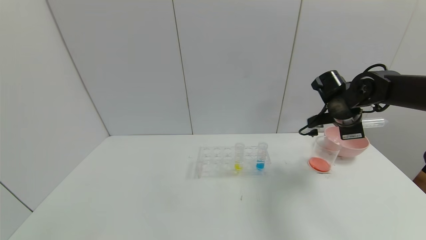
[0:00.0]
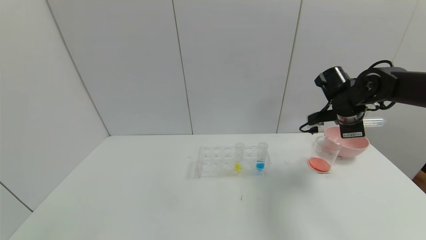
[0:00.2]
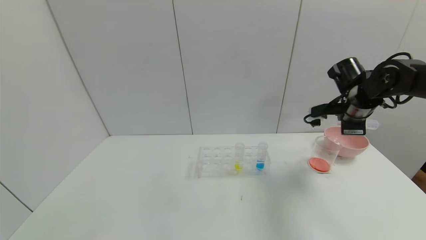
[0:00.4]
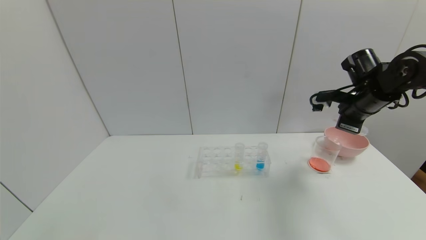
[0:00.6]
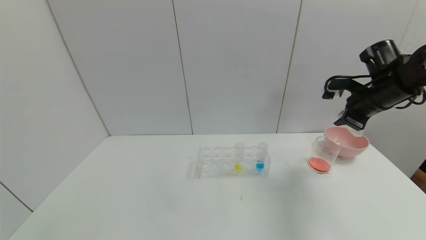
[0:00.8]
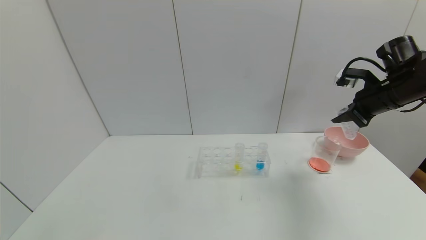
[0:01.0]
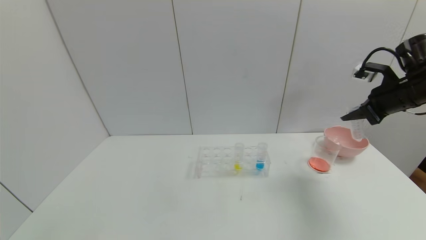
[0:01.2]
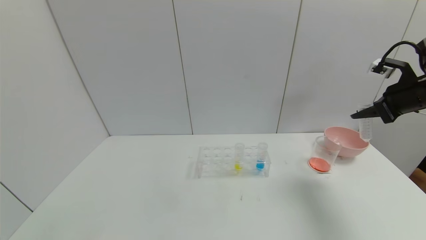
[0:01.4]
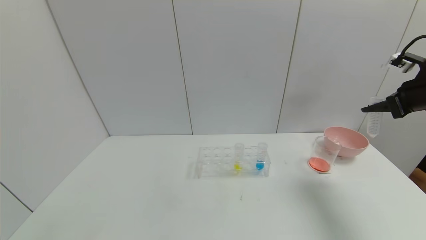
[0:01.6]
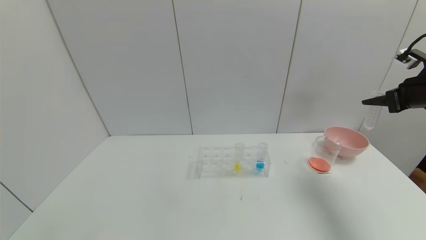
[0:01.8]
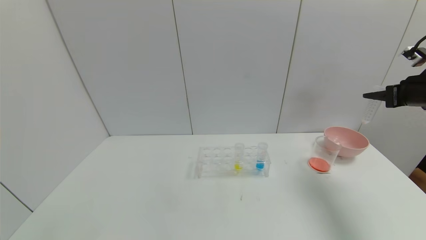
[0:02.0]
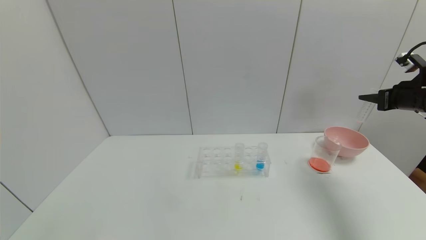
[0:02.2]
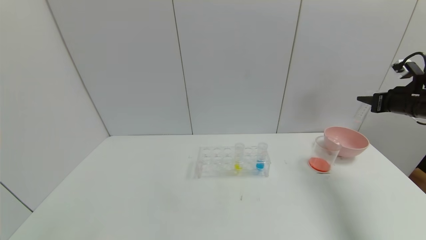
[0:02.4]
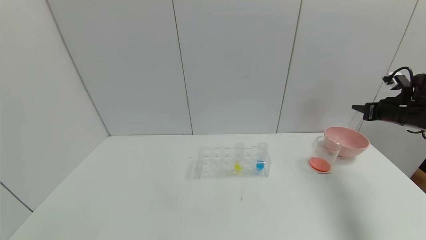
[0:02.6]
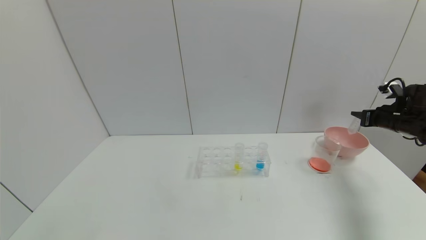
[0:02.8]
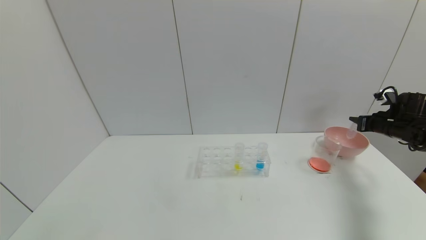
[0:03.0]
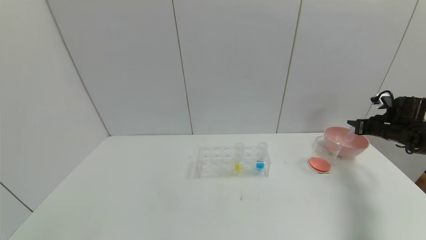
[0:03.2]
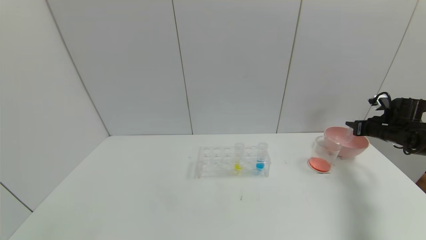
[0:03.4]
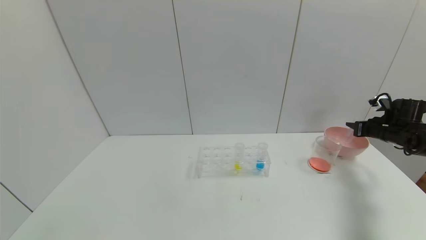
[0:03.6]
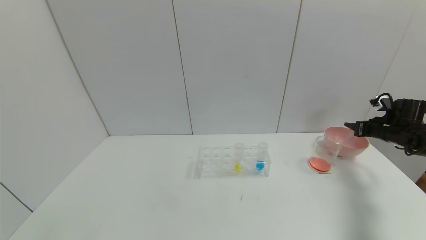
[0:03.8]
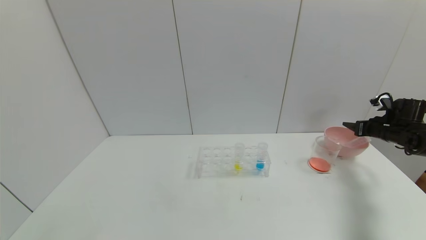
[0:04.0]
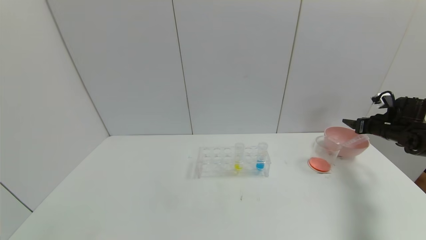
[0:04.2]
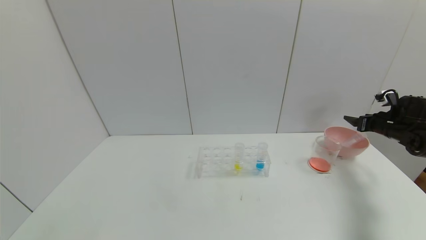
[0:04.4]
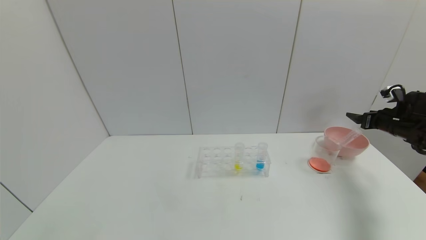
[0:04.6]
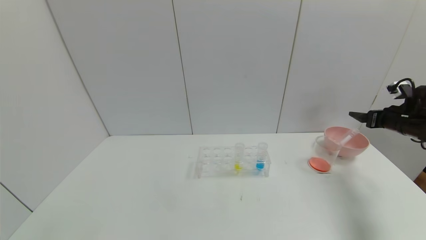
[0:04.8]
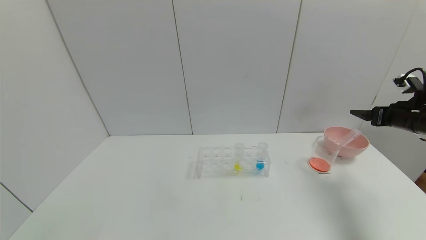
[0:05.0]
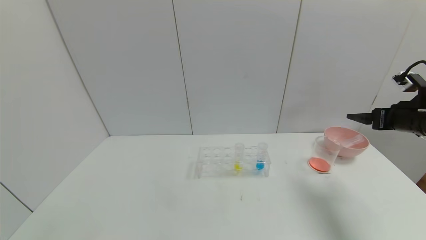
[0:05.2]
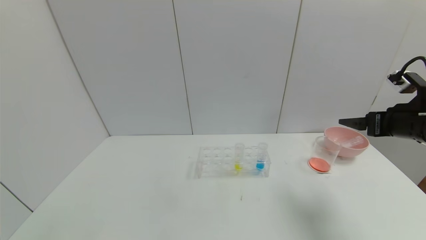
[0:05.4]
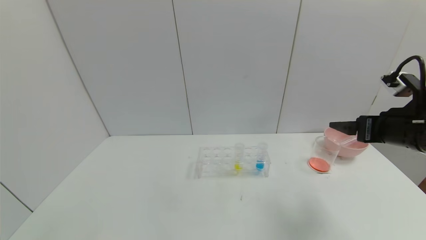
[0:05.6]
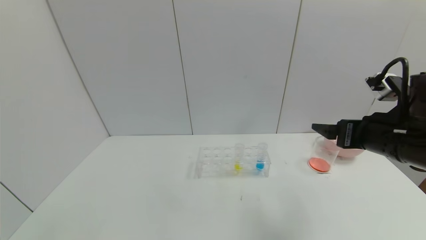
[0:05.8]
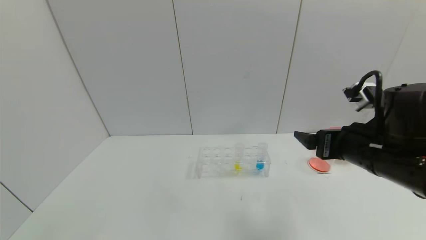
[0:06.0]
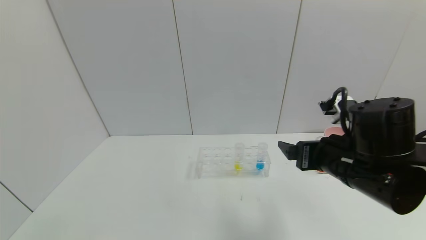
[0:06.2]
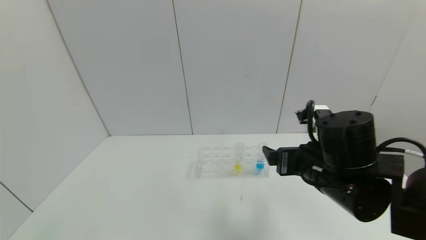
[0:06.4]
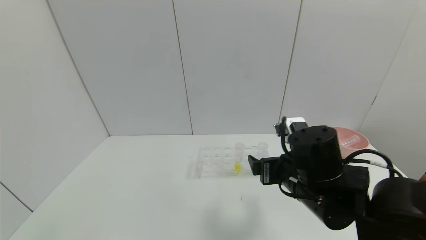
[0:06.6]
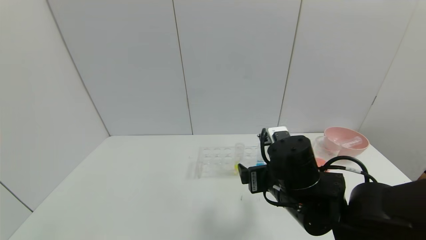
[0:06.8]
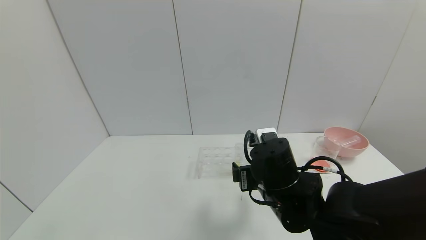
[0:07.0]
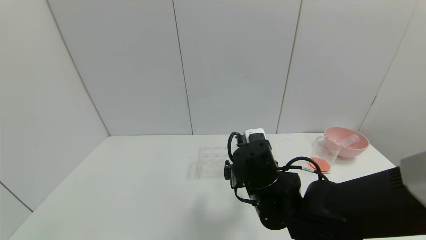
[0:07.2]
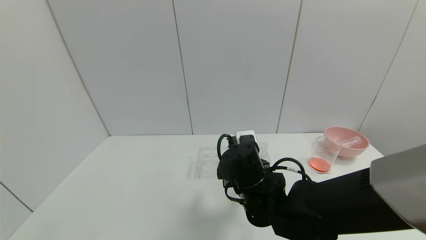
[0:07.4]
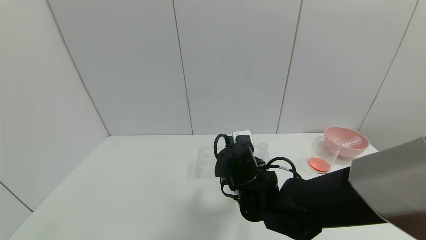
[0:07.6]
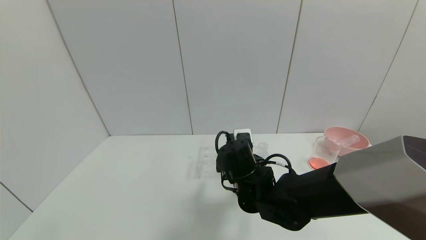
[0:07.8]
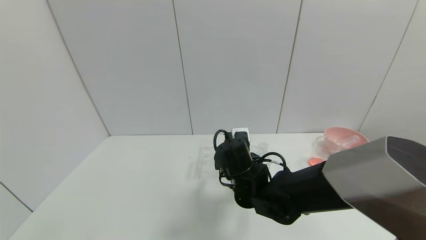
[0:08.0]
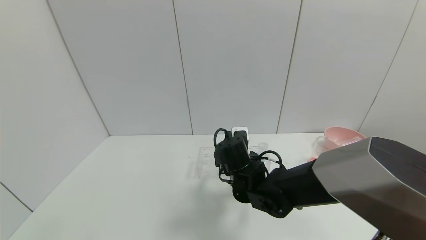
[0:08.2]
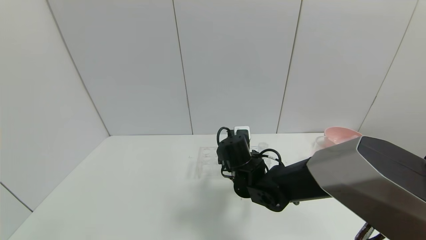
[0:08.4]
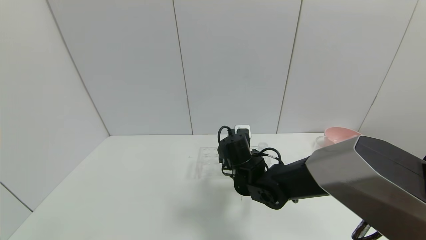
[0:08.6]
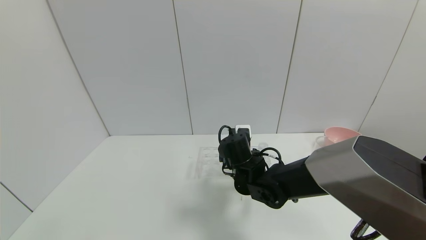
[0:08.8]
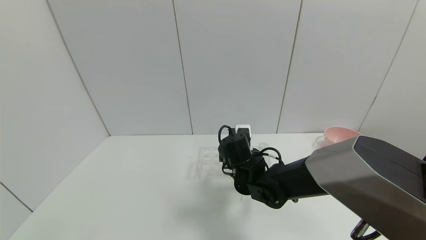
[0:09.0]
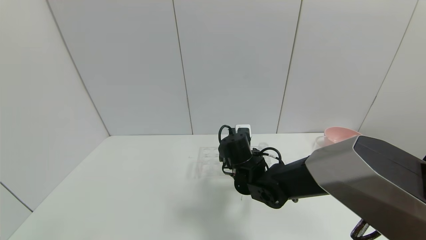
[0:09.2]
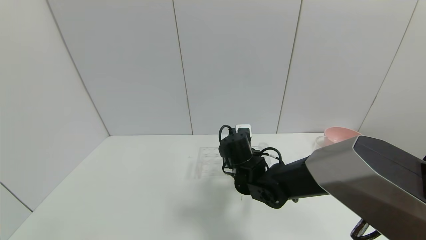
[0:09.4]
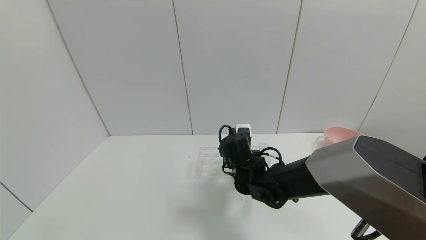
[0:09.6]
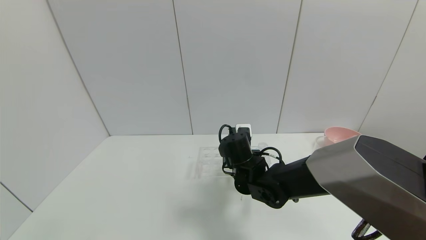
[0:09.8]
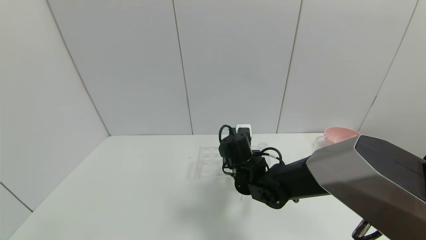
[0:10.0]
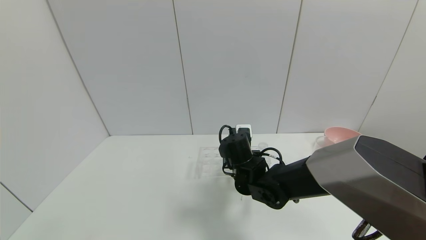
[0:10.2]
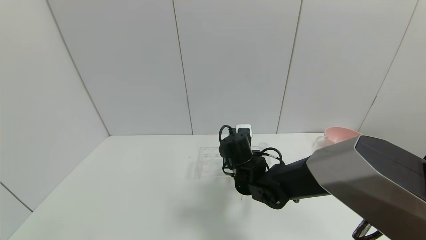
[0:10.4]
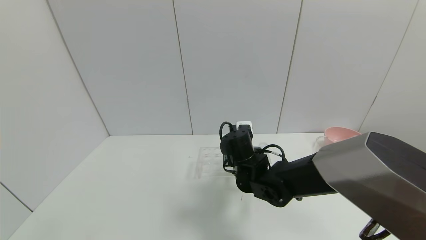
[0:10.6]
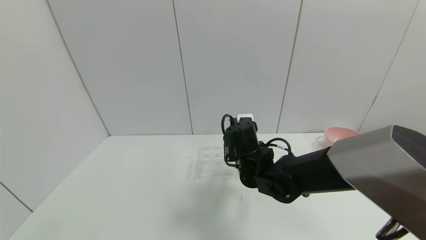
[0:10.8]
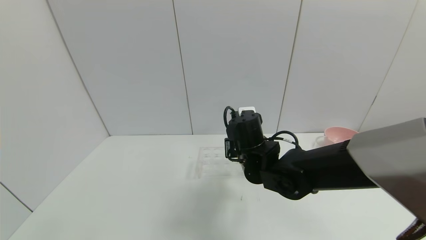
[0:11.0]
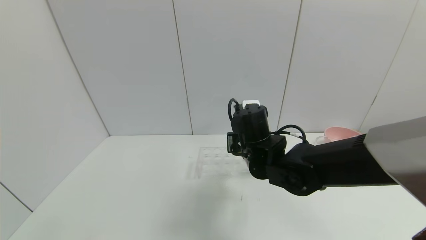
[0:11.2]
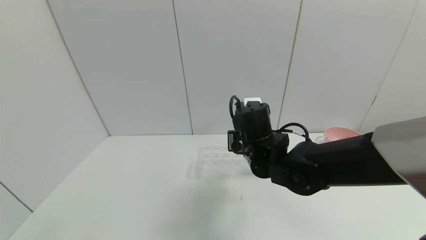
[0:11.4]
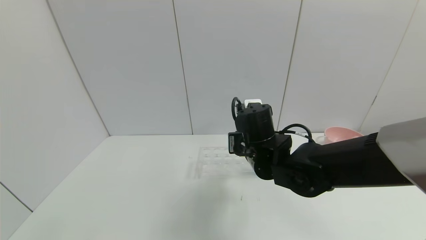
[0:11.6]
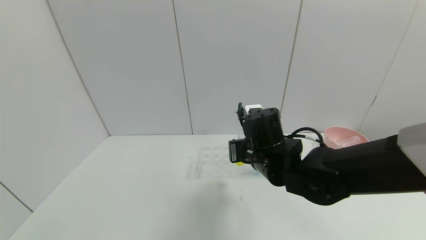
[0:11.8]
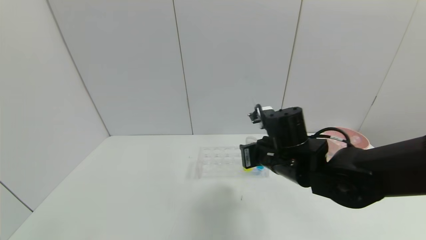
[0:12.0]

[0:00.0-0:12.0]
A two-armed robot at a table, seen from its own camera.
Task of the whole recording: pick up the test tube with yellow pigment and the test tube with red pigment by grippers and pour them into the beaker.
Step, 0:00.2 to 0:04.6: Place the test tube into the bowl with the right gripper.
Step, 0:04.8 to 0:10.2: Grasp the yellow reagent with the right gripper.
0:00.0 to 0:01.6: The right gripper goes approximately 15 cm to the right, upward and backward.
0:01.6 to 0:03.0: The right gripper goes about 15 cm downward and forward.
0:03.0 to 0:04.4: The right gripper opens.
0:04.4 to 0:06.0: The right gripper goes approximately 35 cm to the left and backward.
0:06.0 to 0:07.6: The right gripper travels to the left and downward by roughly 20 cm.
0:07.6 to 0:09.0: The right gripper is displaced forward by about 5 cm.
0:09.0 to 0:10.4: The right gripper closes.
0:10.4 to 0:12.0: The right gripper heads to the right and upward, covering some 10 cm.

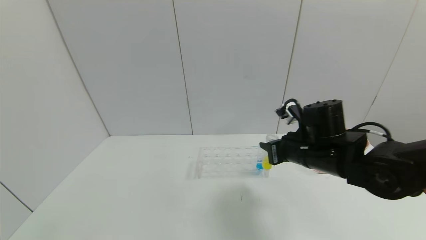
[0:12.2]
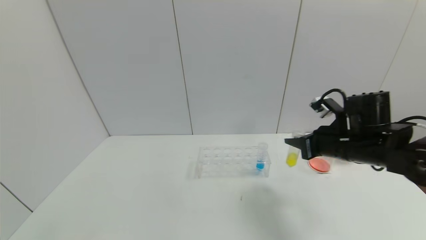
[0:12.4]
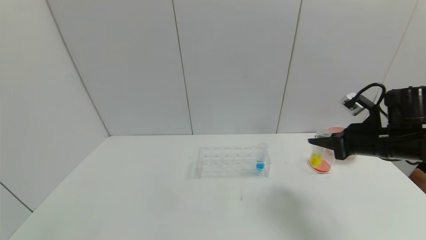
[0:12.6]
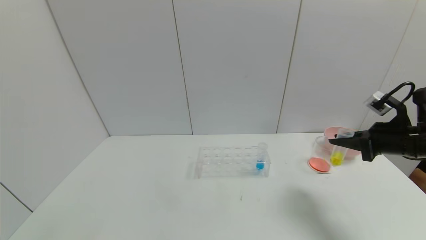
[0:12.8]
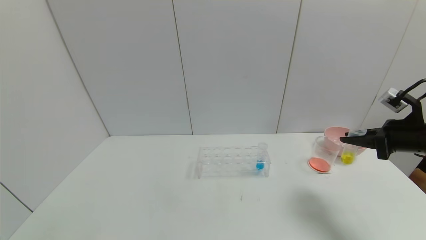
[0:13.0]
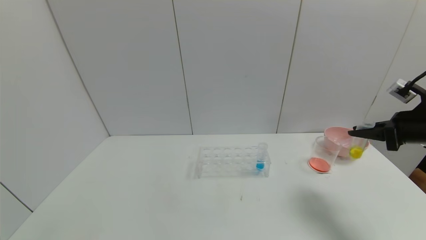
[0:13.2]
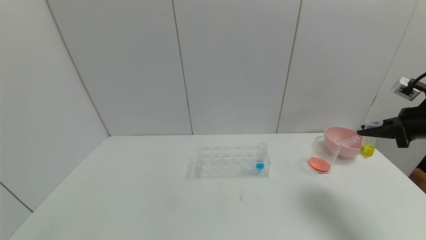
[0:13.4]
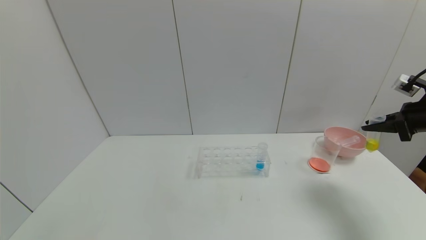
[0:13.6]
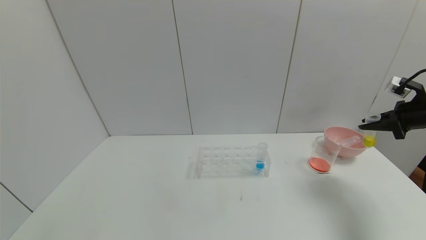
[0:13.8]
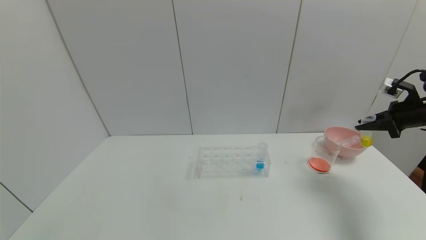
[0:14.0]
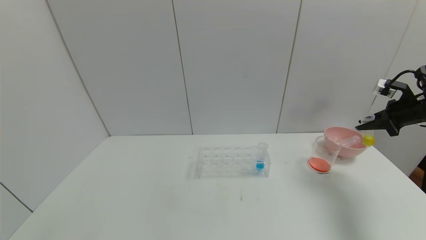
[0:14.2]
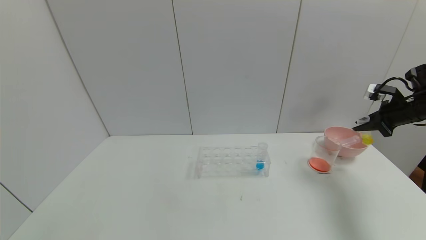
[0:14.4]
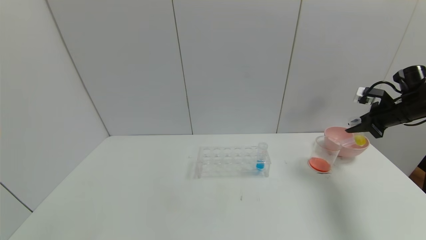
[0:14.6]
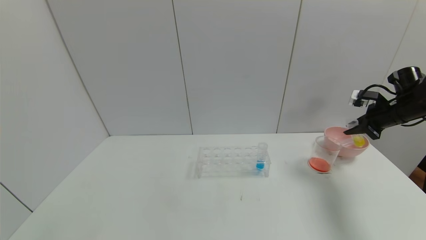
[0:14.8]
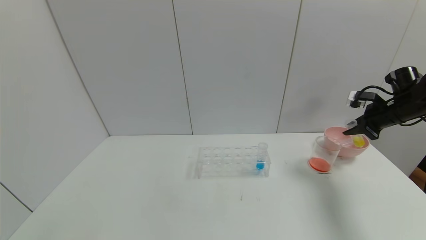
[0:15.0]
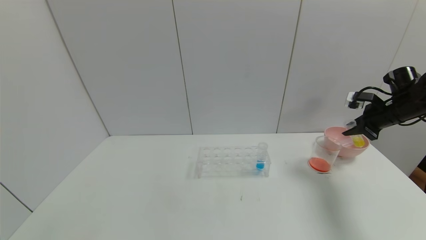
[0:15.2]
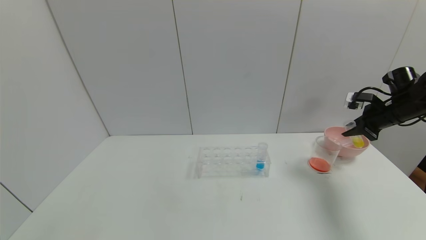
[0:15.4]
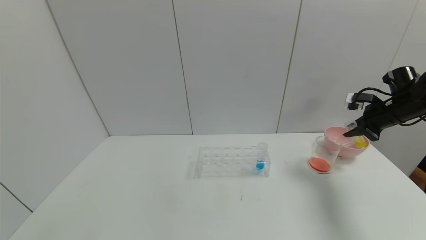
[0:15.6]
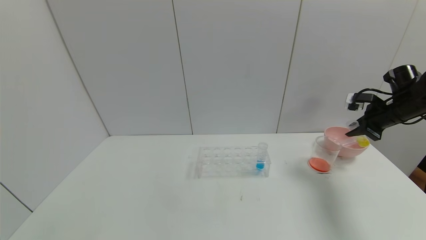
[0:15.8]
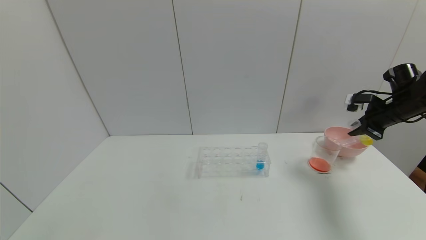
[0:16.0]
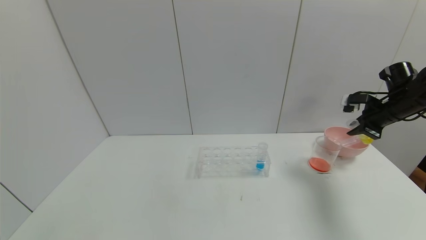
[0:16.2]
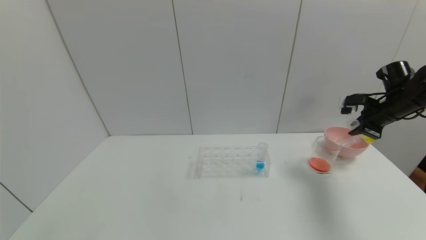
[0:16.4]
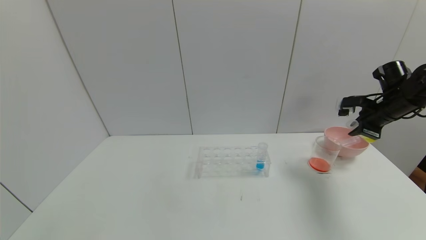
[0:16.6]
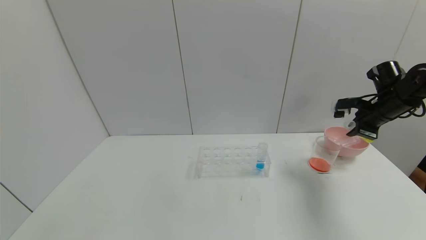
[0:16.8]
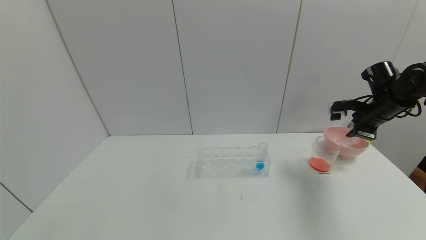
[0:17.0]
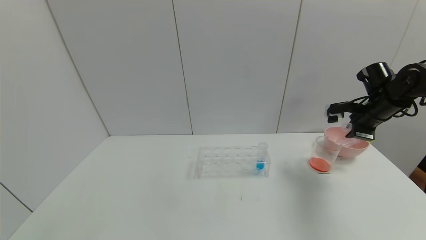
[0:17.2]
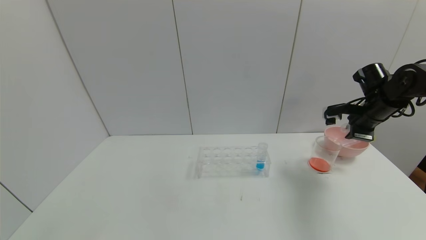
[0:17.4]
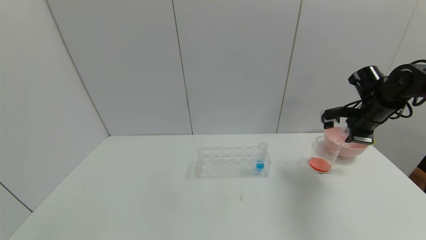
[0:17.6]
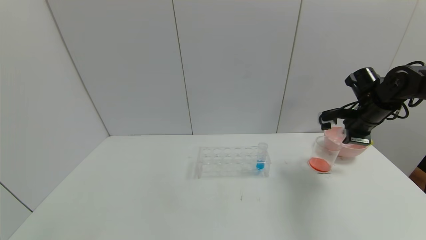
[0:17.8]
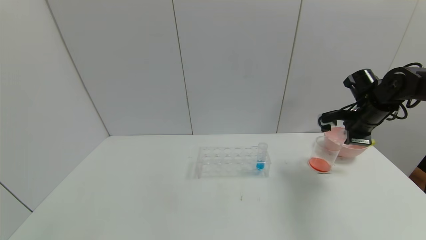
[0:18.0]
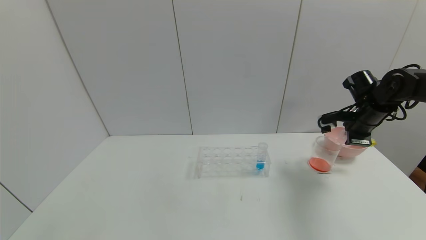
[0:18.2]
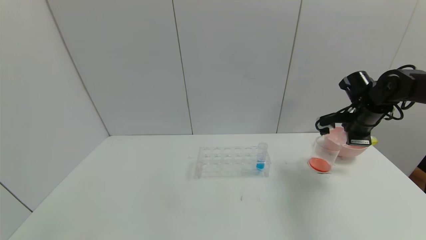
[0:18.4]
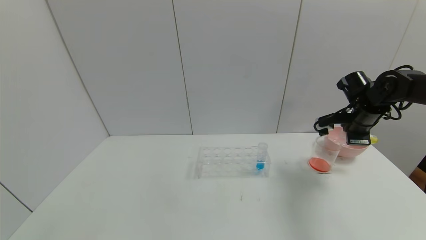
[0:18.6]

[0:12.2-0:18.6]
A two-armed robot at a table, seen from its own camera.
Task of the whole recording: pick up the test tube with yellow pigment and the test tube with red pigment by grippers and pour them into the beaker.
0:12.2 to 0:13.8: The right gripper goes approximately 25 cm to the right.
0:13.8 to 0:15.4: The right gripper moves forward, roughly 5 cm.
0:15.4 to 0:17.0: The right gripper moves to the left, approximately 5 cm.
0:17.0 to 0:18.6: The grippers make only small movements.
